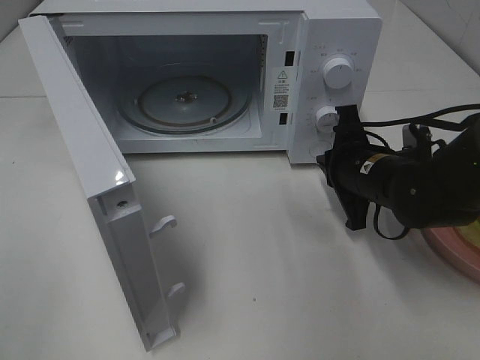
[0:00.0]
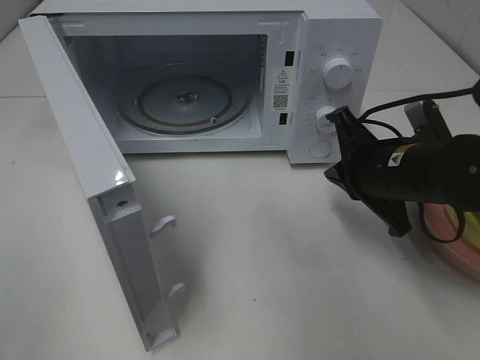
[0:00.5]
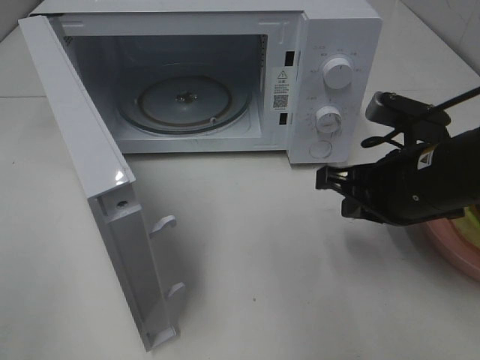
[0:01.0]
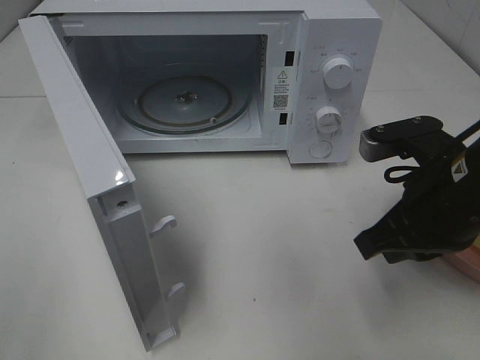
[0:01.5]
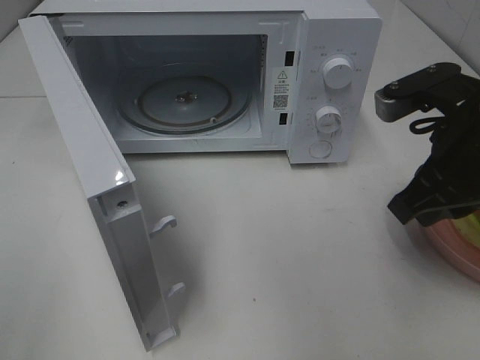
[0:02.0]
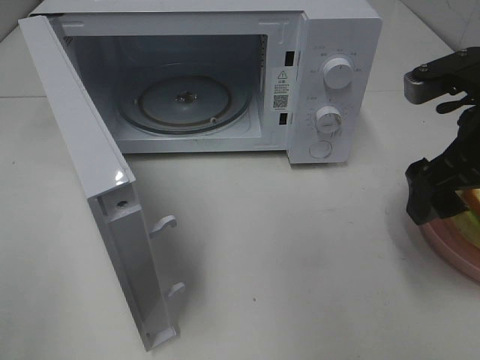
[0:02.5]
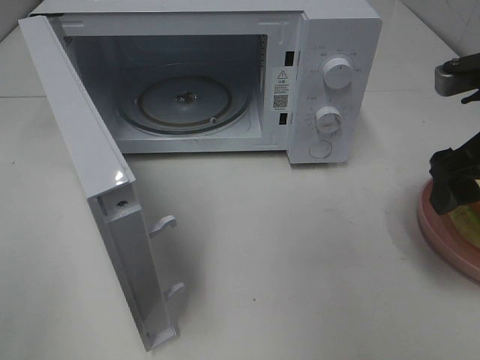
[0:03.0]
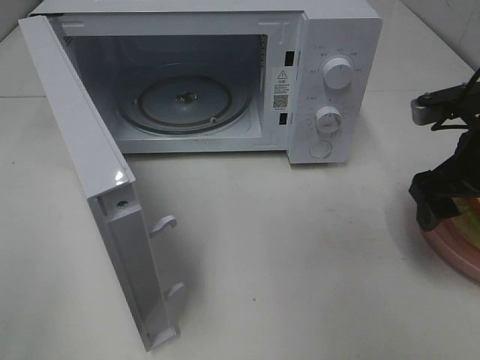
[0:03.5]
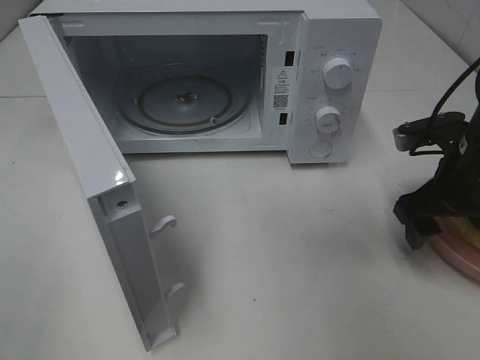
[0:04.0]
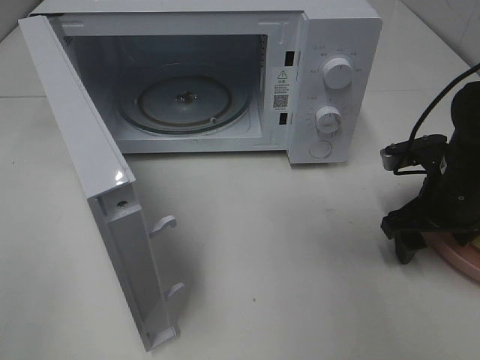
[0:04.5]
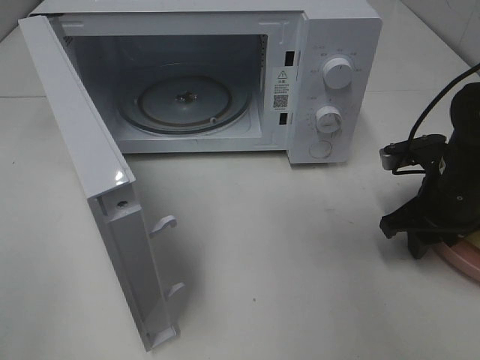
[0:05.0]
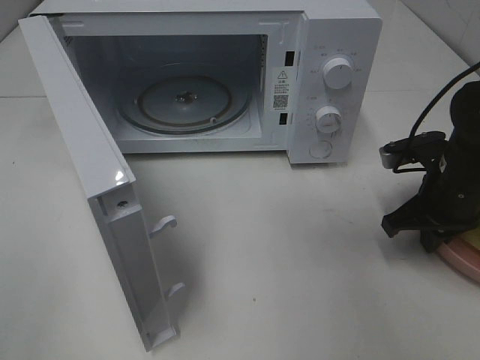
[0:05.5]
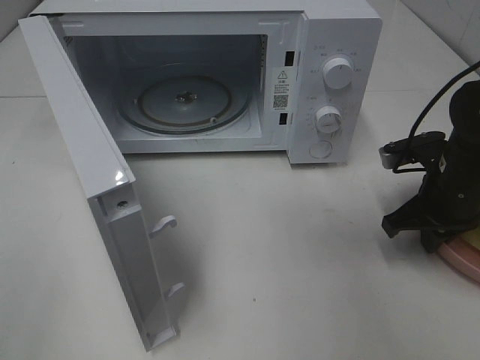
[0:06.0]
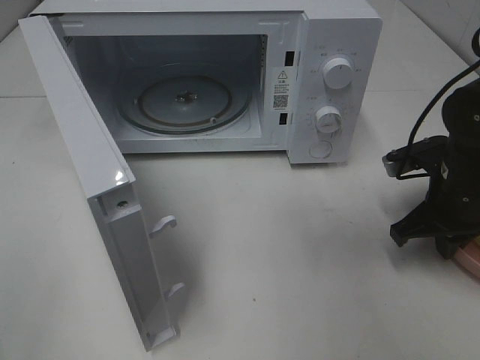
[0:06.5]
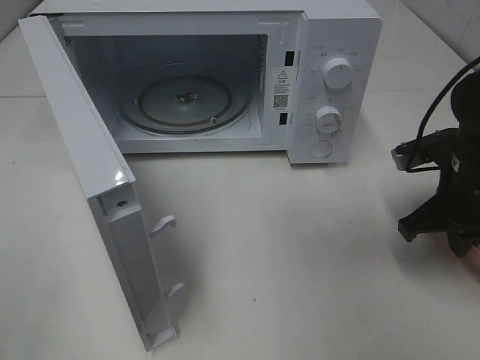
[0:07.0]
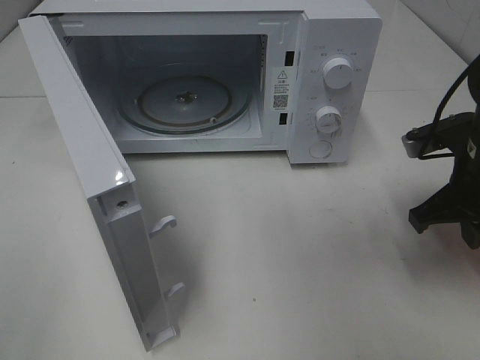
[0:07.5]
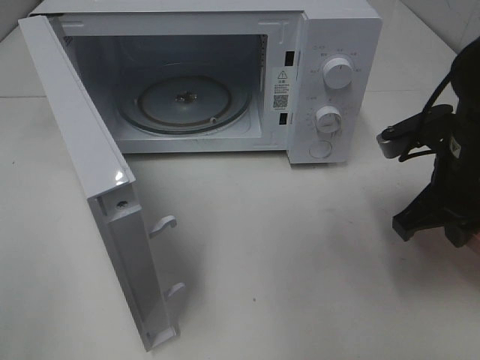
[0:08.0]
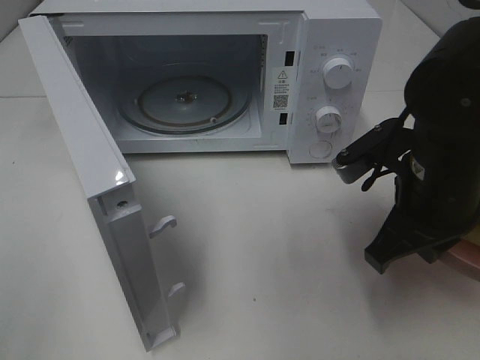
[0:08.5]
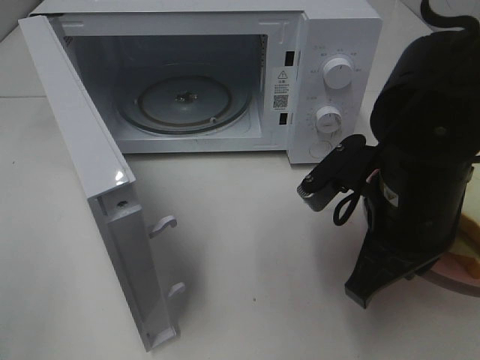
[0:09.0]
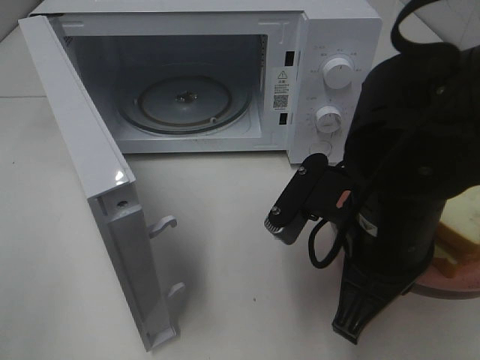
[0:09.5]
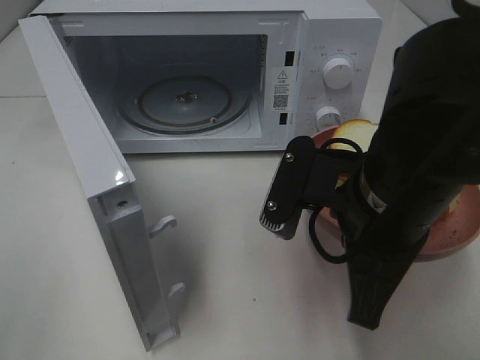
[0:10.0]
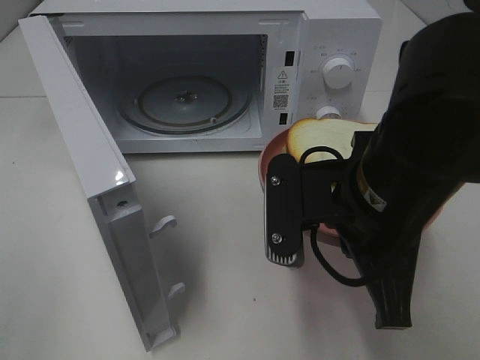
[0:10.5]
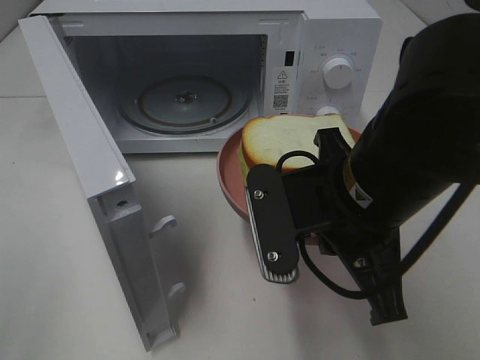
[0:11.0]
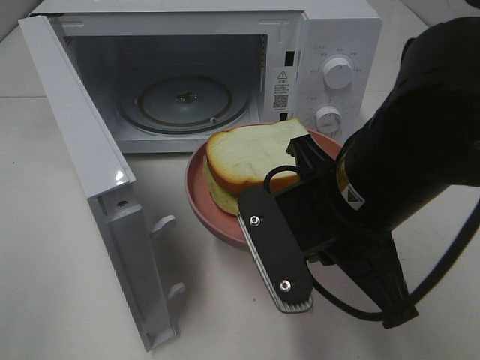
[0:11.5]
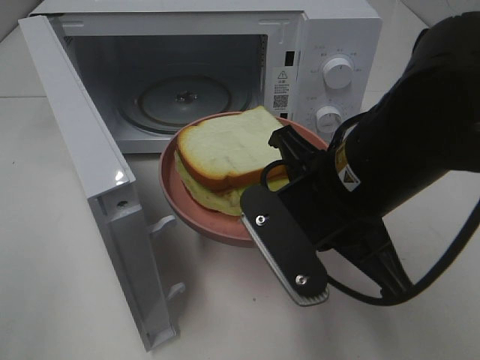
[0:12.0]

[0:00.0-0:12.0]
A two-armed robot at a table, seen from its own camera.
Task of the whole recording: Heat Sandwich.
Step, 0.0 to 6.5 s: Right hand: grab the plate with the sandwich.
0.0 to 2.0 s: The right gripper is displaced upward and backward by about 15 cm.
2.0 to 4.0 s: The right gripper goes about 10 cm downward, forward and to the right, and opens up.
4.0 to 6.0 s: The right gripper closes up.
6.0 to 8.0 s: The right gripper shifts approximately 5 cm upward.
8.0 to 10.0 s: The right gripper goes roughly 15 cm to the left and backward.

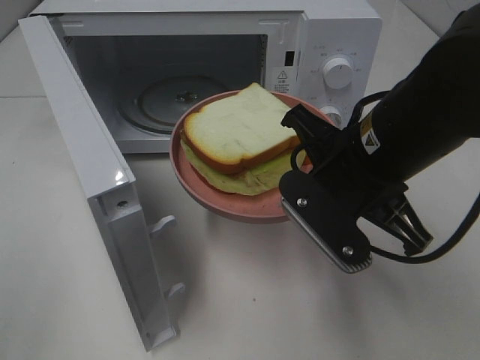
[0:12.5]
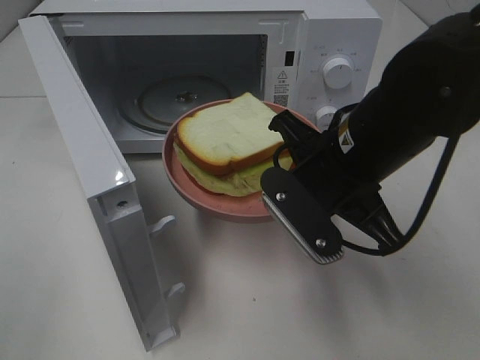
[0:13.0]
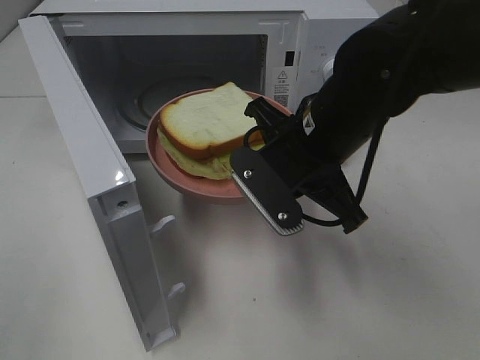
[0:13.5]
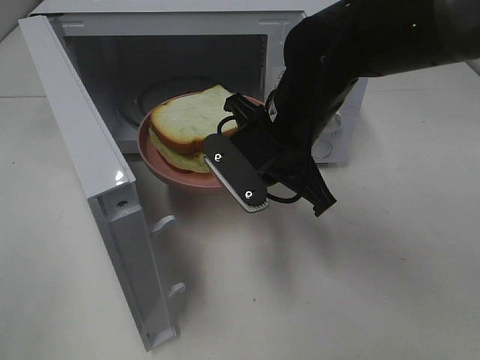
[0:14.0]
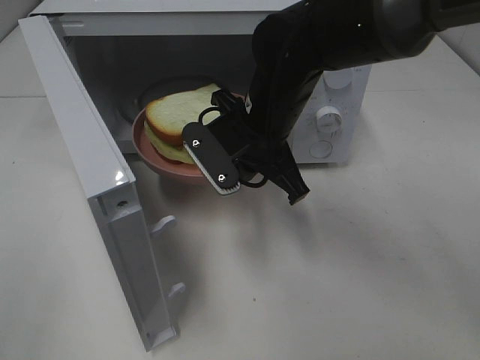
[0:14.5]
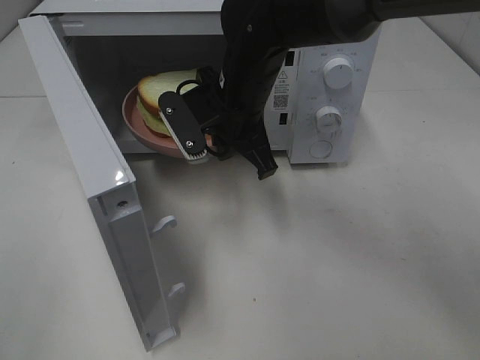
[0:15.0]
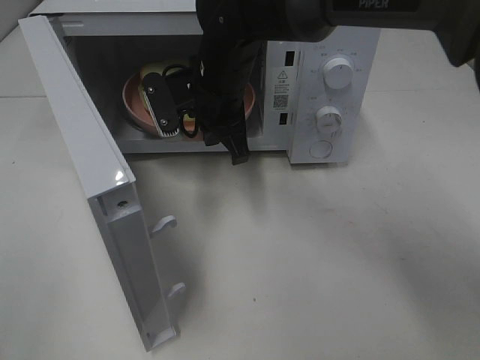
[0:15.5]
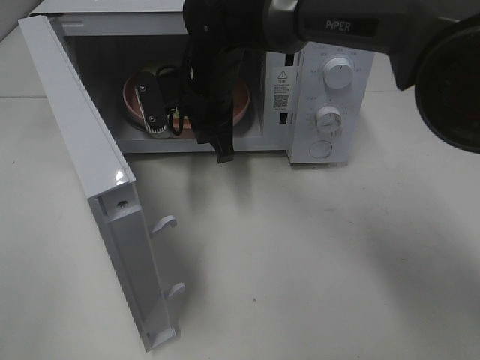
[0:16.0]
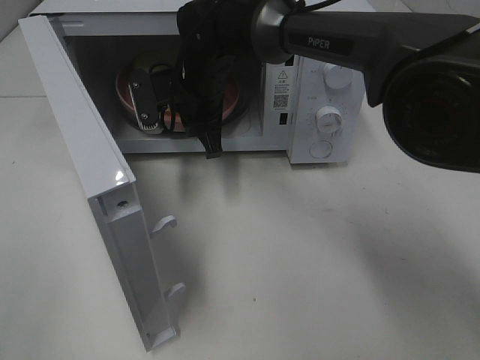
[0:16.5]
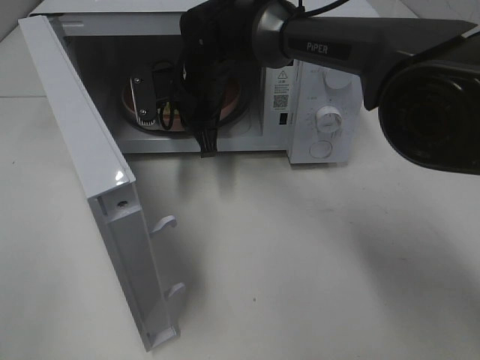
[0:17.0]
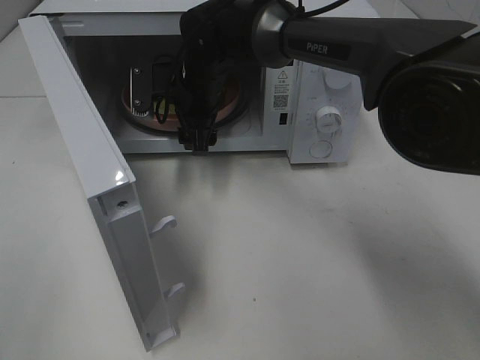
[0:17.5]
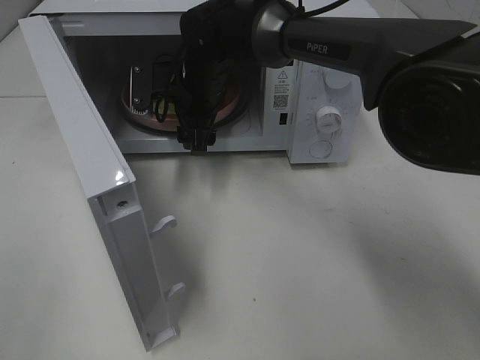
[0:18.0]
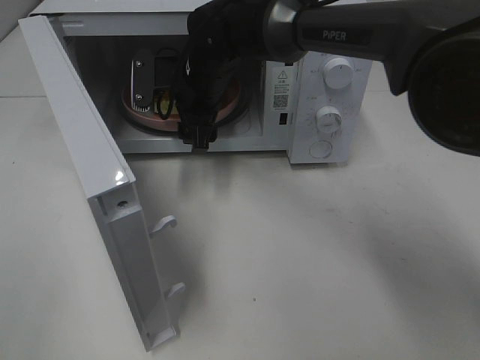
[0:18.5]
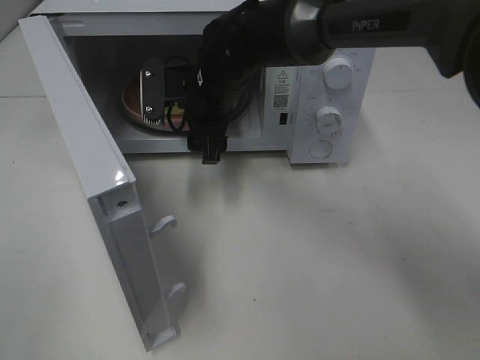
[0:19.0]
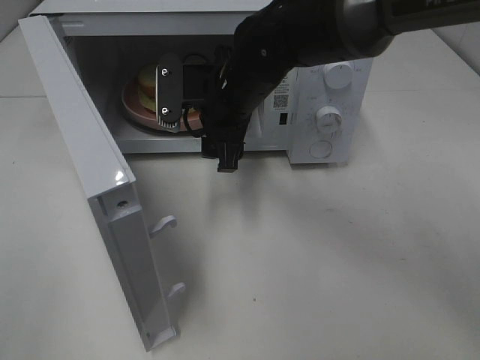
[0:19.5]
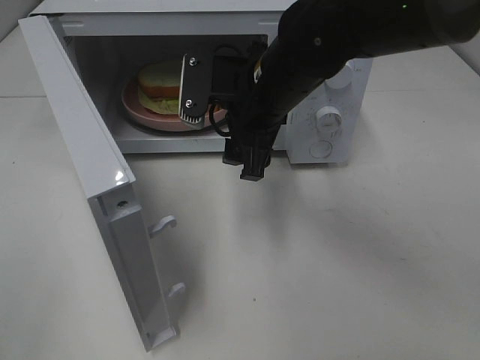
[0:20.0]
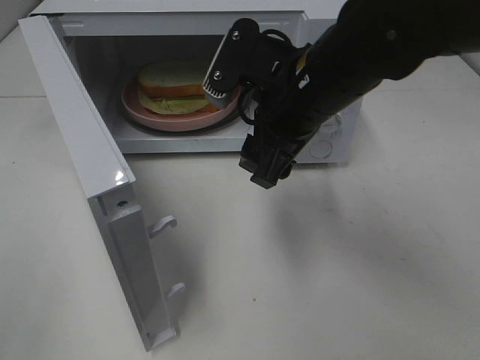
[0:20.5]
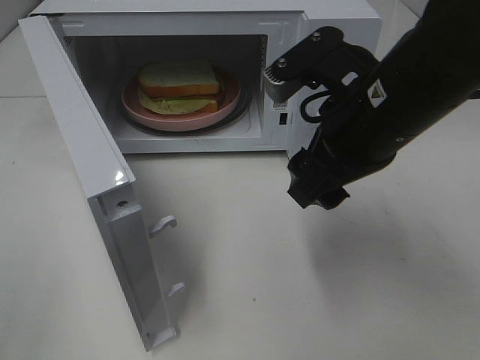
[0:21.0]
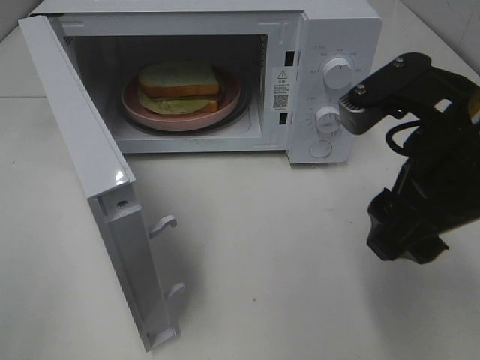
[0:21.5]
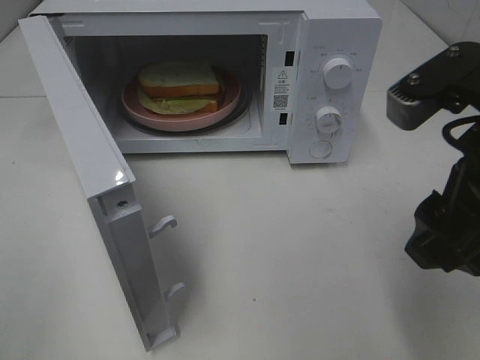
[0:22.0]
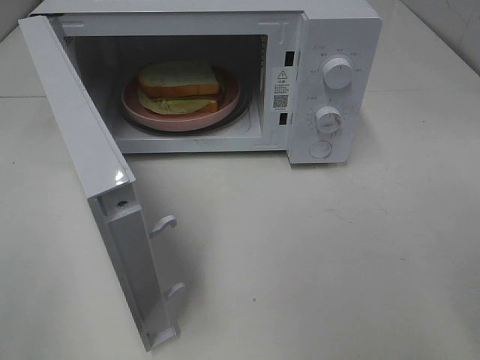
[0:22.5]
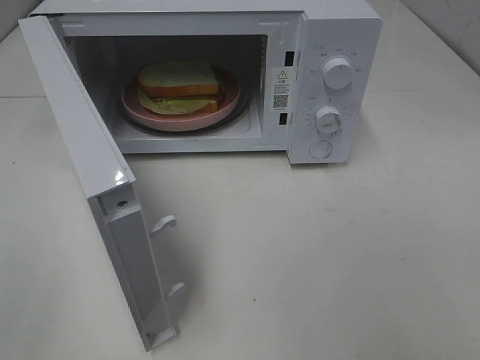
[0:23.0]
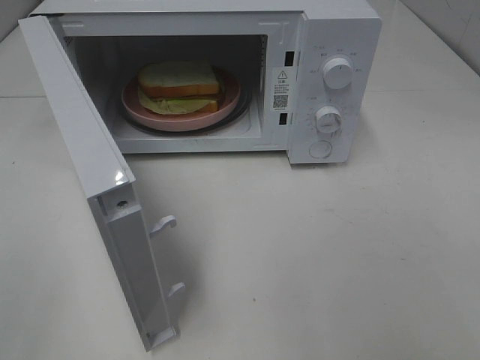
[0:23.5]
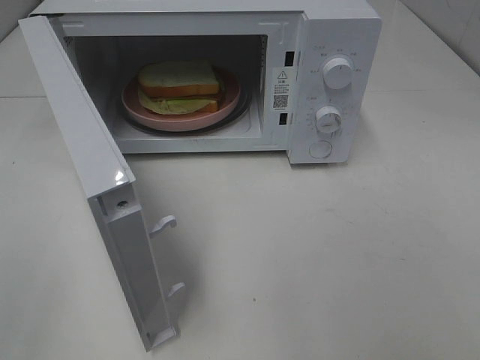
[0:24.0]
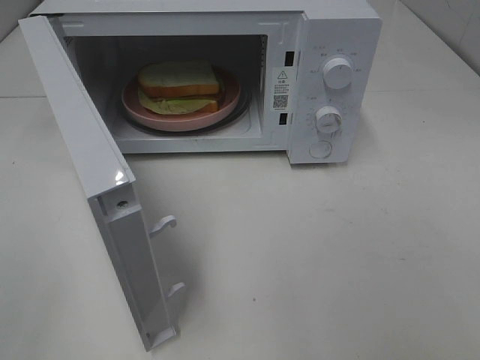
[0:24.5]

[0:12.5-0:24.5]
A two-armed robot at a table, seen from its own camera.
Task of the whole recording: Heat Sandwich.
Step, 12.5 to 18.5 s: Right hand: place the plate in the microwave.
12.5 to 14.5 s: The right gripper is displaced forward and to the left by about 15 cm.
14.5 to 16.5 s: The right gripper heads forward and to the left, covering roughly 10 cm.
16.5 to 18.5 s: The right gripper opens up.
18.5 to 20.5 s: The right gripper goes approximately 20 cm backward, to the right and upward.
20.5 to 22.5 s: The right gripper shifts about 25 cm to the right and backward.

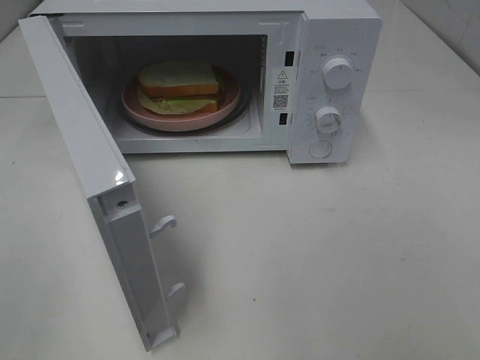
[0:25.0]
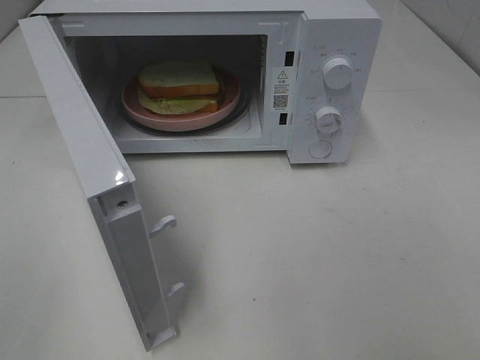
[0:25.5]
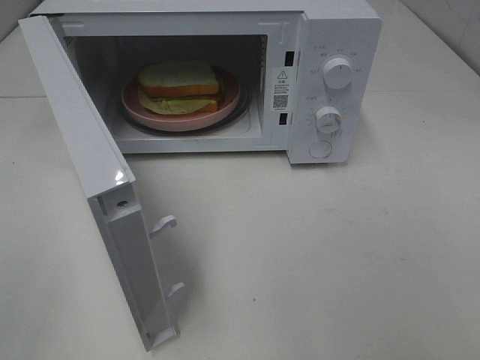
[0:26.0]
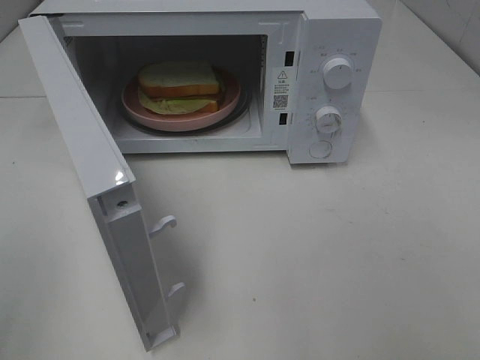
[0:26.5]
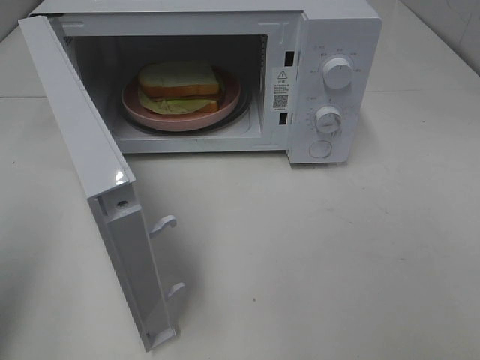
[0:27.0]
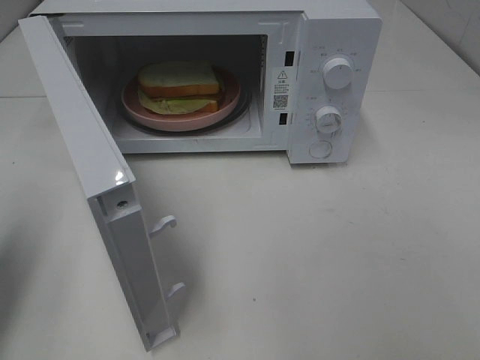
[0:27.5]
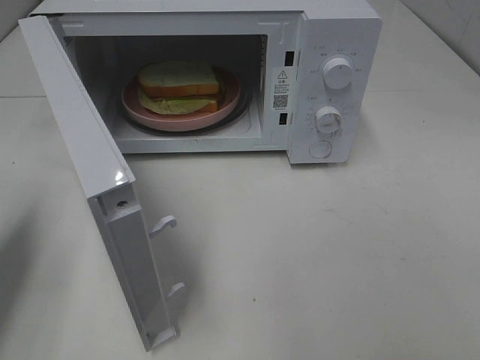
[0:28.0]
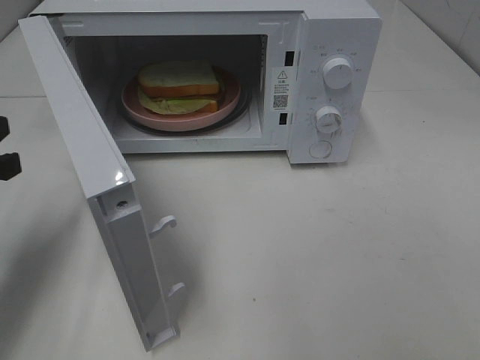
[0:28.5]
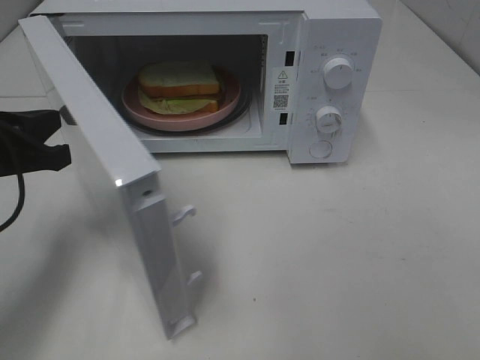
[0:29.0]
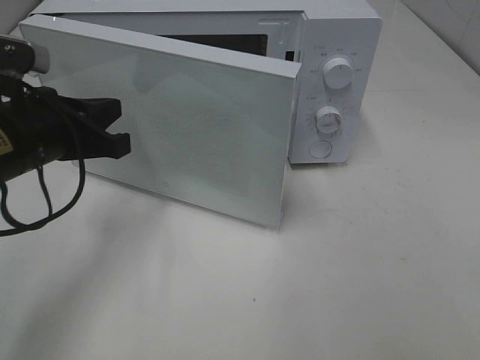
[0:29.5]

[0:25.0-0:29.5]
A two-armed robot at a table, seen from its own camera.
Task of the whole recording: Heat Sandwich.
25.0 to 27.0 s: The left gripper is displaced forward by some 10 cm, and closes up.
27.0 to 29.5 s: The left gripper heads forward, to the right and downward, covering some 25 cm.
